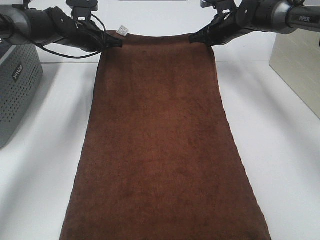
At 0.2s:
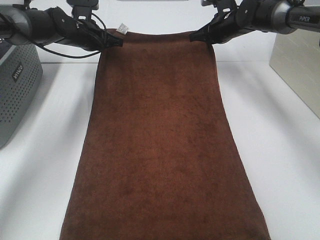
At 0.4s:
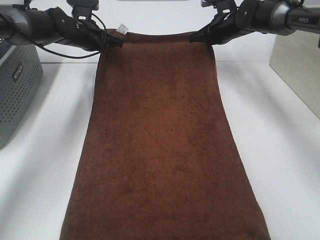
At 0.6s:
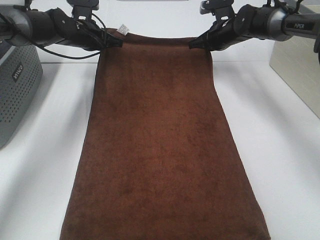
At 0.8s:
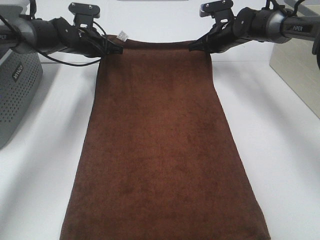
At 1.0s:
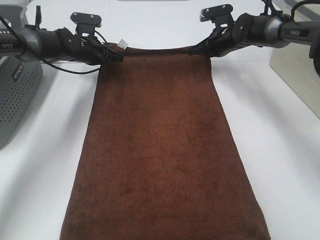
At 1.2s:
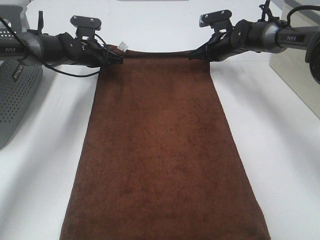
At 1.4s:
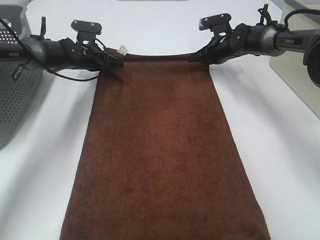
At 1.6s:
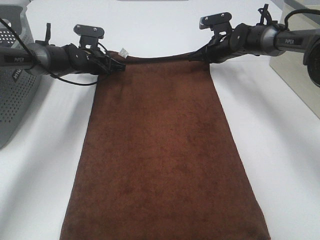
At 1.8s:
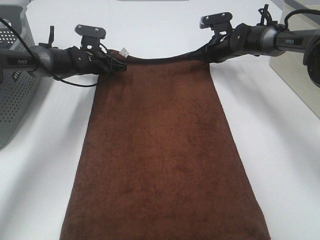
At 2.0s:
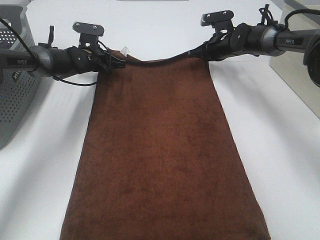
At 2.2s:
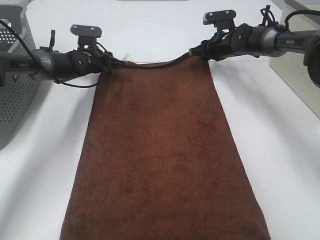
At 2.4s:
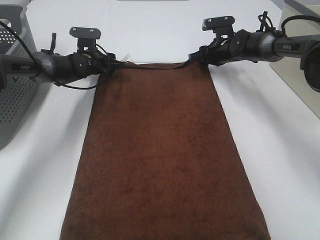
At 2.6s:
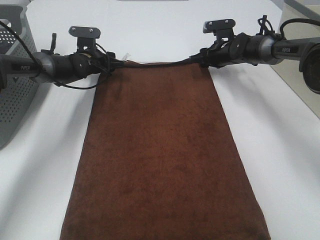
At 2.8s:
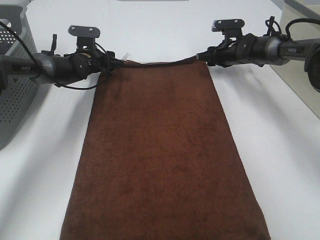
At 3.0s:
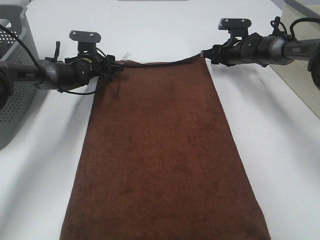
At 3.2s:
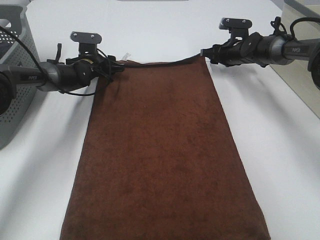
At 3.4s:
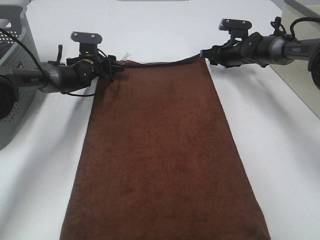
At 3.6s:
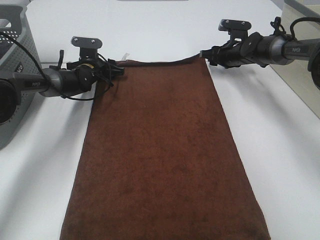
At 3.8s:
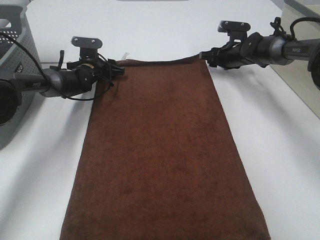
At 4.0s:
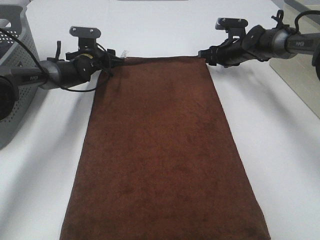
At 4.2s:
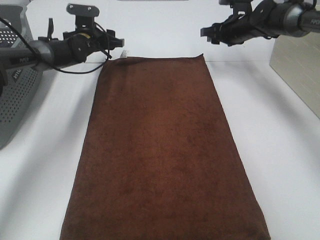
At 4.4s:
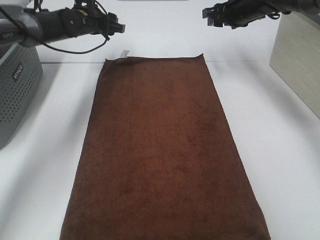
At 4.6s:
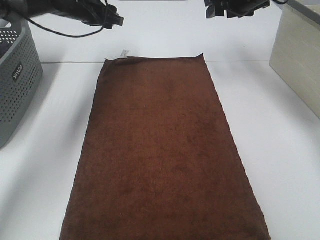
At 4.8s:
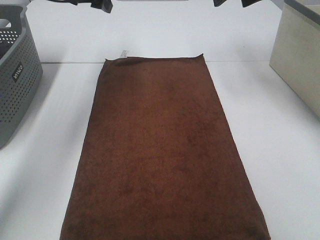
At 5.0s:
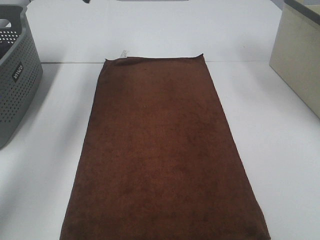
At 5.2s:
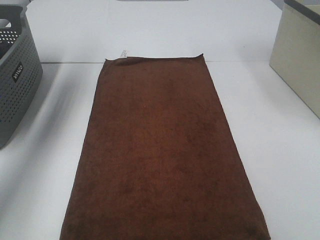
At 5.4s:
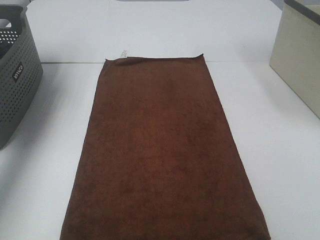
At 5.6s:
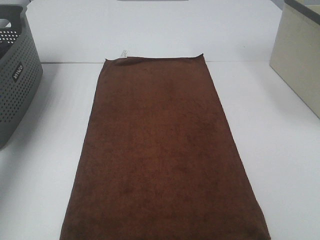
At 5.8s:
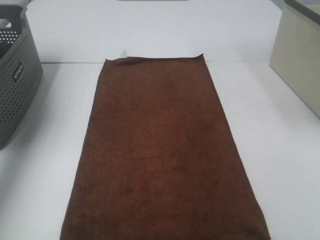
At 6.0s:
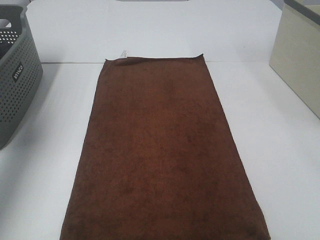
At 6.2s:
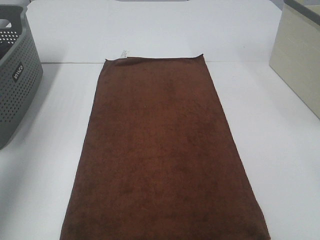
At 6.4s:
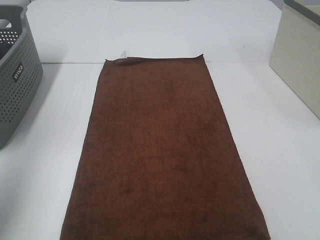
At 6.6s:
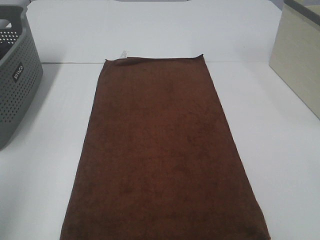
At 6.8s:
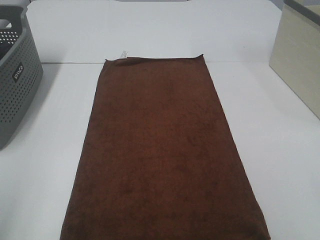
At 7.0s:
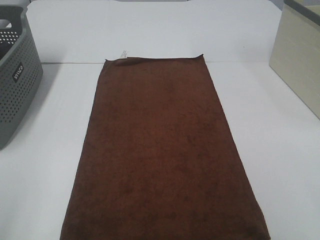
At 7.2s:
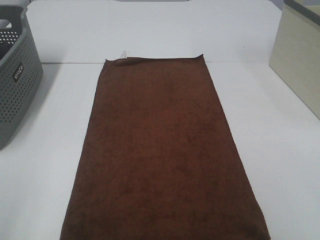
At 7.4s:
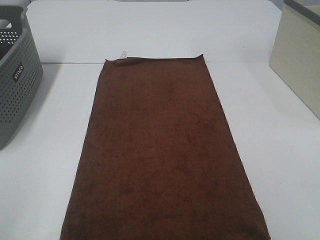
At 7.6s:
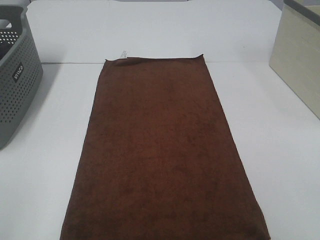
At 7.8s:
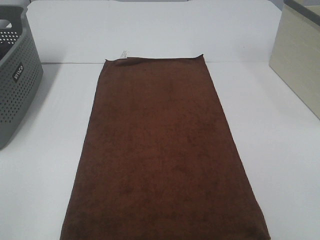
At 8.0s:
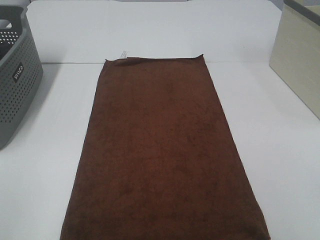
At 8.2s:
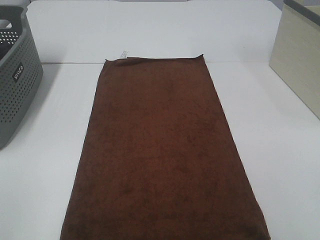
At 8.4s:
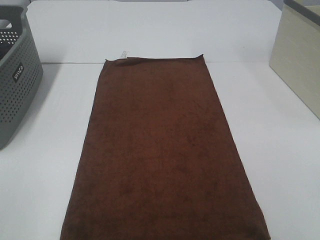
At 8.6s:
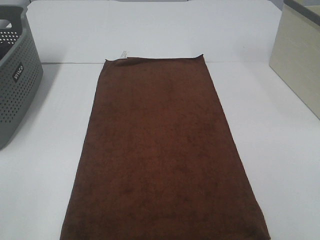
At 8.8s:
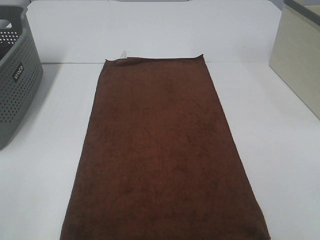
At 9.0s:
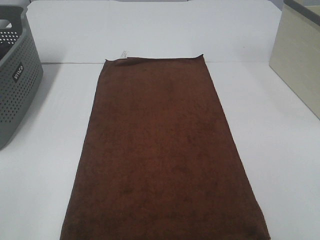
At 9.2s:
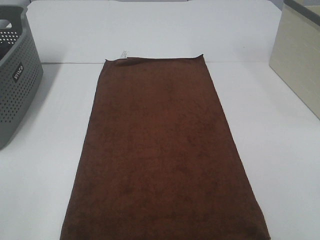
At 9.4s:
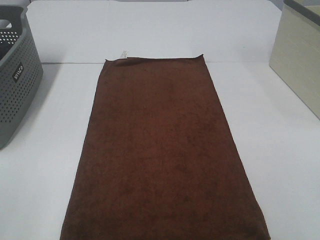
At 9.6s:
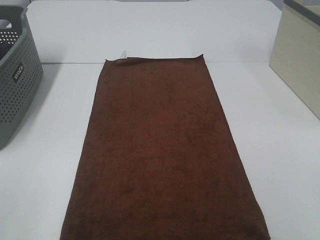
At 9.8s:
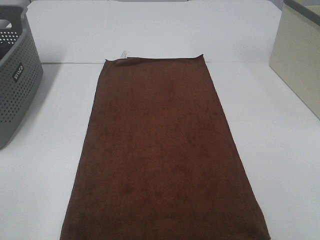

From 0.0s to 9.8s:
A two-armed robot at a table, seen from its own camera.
Task of the whole recording: Remove the towel and place it.
From 0.0s to 1.4s: The two grippers go some 5 cm downward.
From 1.4s to 2.8s: The right gripper opens up; the left gripper opens.
From 2.8s to 4.2s: The right gripper travels upward by approximately 10 cm. Meanwhile the left gripper travels upward by about 5 cm.
From 4.2s to 5.6s: The left gripper heads upward, to the left and backward, covering some 35 cm, while the right gripper travels upward and backward by some 30 cm.
From 5.6s to 7.0s: The left gripper moves backward, roughly 35 cm.

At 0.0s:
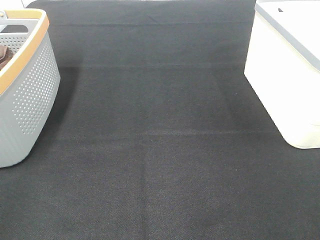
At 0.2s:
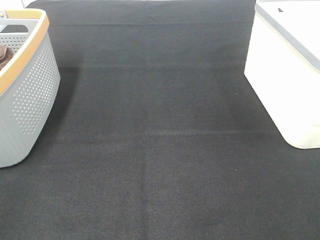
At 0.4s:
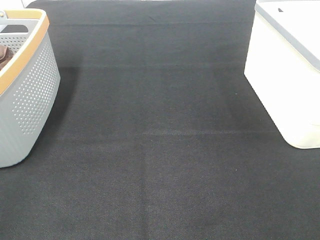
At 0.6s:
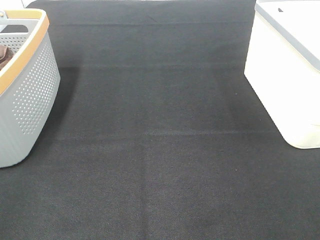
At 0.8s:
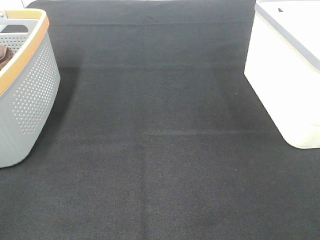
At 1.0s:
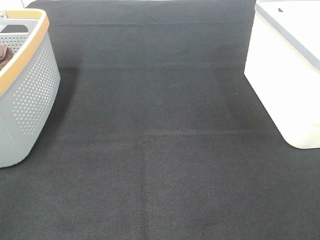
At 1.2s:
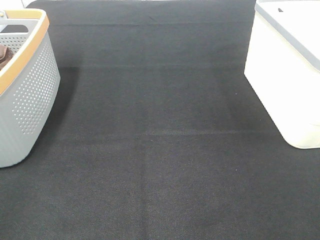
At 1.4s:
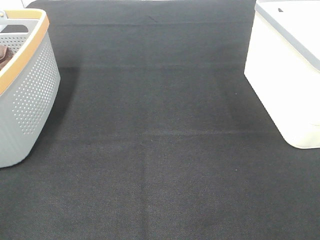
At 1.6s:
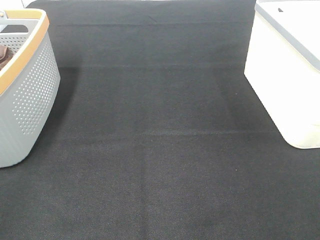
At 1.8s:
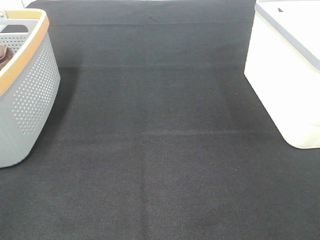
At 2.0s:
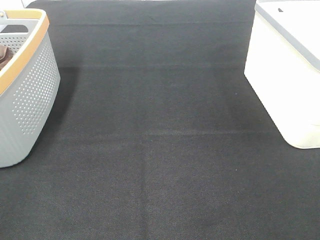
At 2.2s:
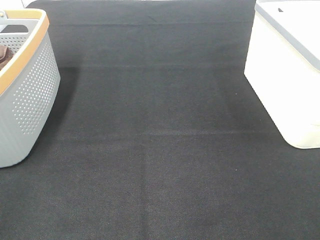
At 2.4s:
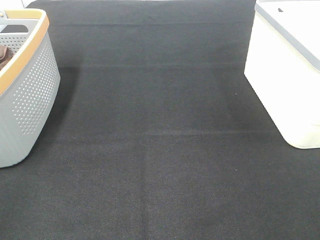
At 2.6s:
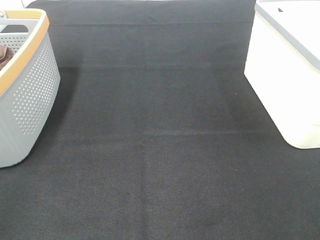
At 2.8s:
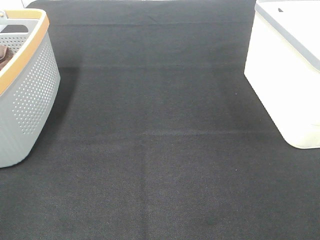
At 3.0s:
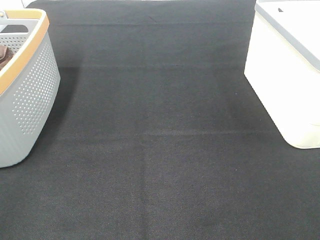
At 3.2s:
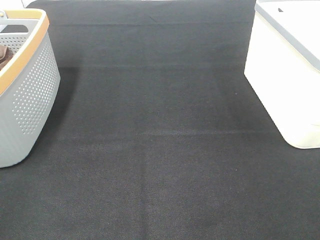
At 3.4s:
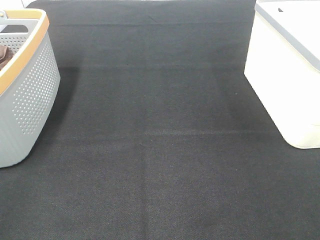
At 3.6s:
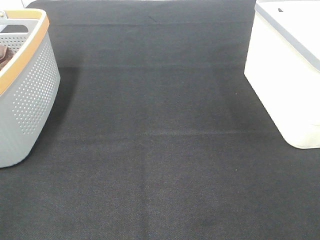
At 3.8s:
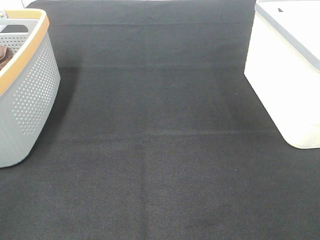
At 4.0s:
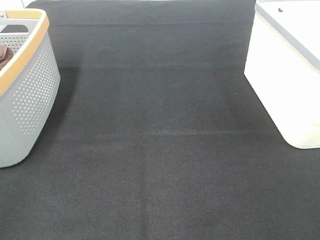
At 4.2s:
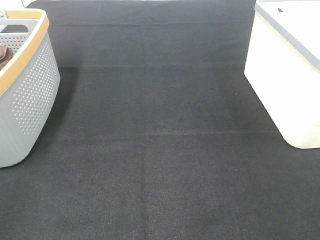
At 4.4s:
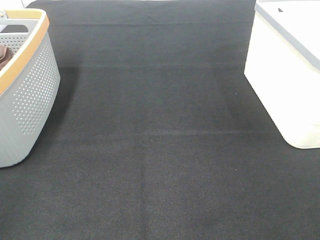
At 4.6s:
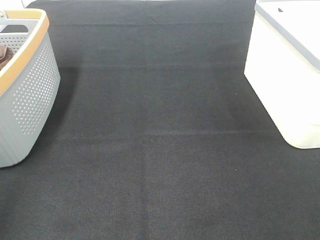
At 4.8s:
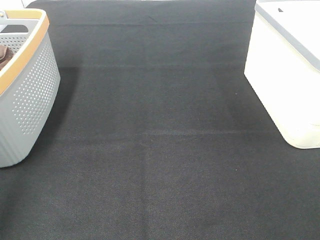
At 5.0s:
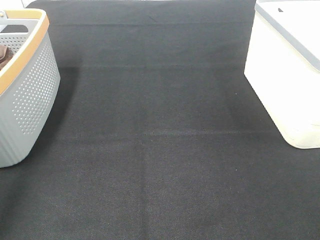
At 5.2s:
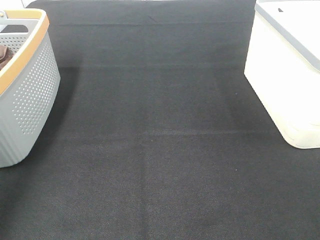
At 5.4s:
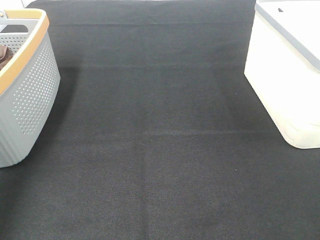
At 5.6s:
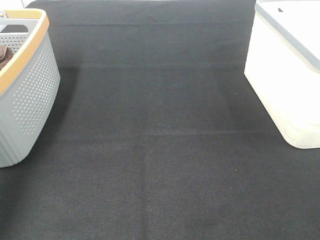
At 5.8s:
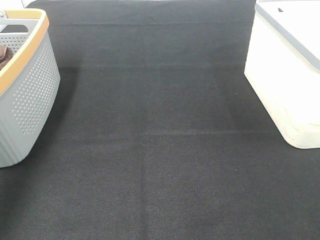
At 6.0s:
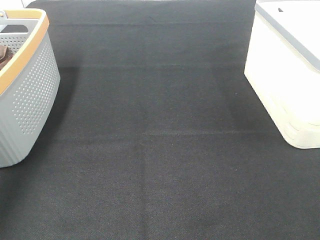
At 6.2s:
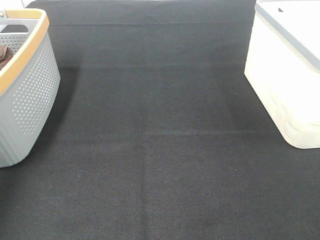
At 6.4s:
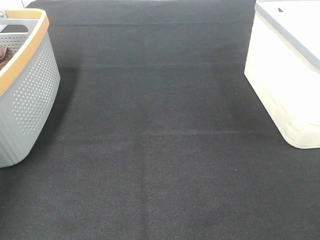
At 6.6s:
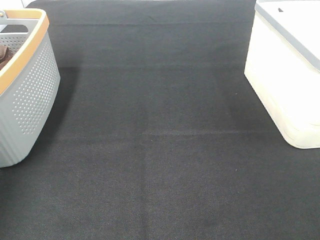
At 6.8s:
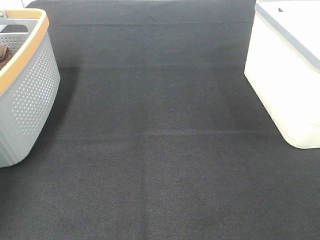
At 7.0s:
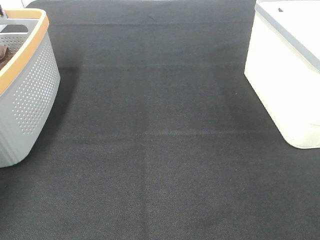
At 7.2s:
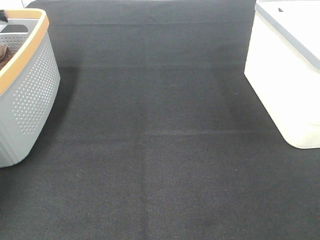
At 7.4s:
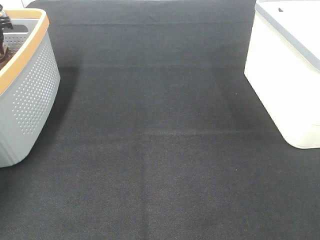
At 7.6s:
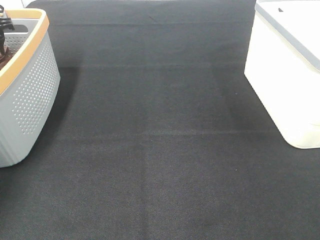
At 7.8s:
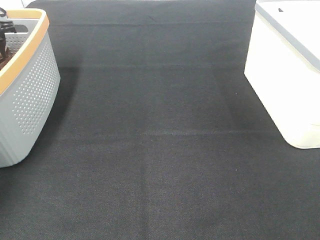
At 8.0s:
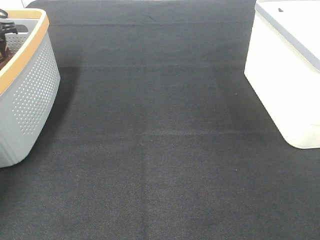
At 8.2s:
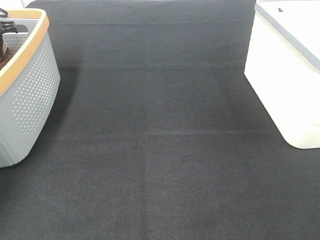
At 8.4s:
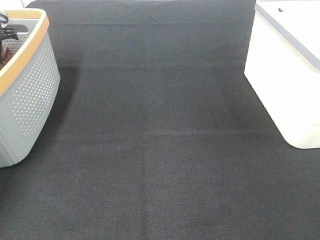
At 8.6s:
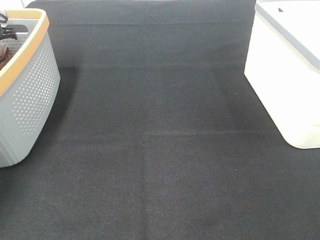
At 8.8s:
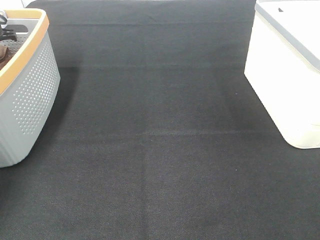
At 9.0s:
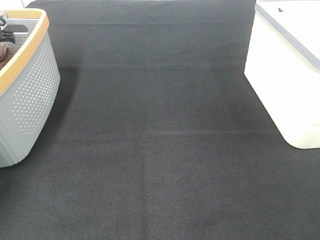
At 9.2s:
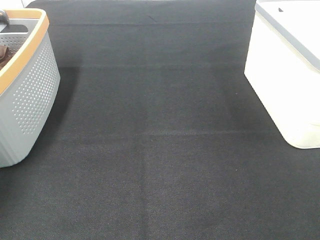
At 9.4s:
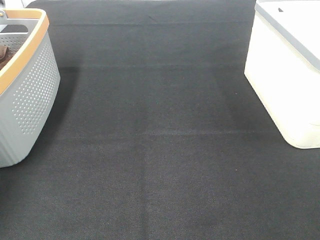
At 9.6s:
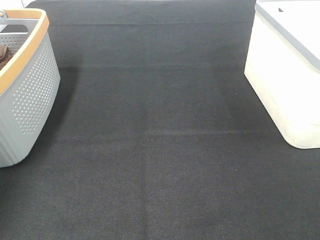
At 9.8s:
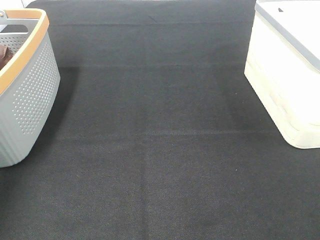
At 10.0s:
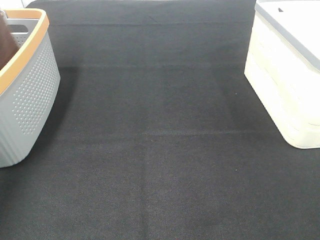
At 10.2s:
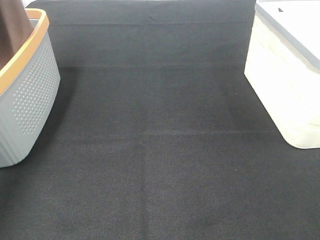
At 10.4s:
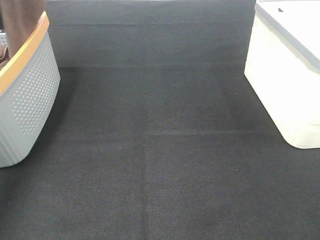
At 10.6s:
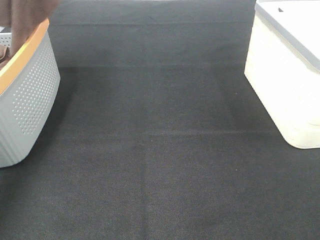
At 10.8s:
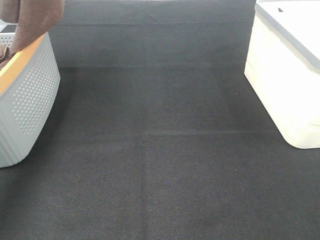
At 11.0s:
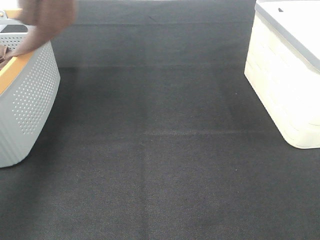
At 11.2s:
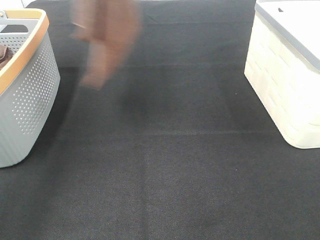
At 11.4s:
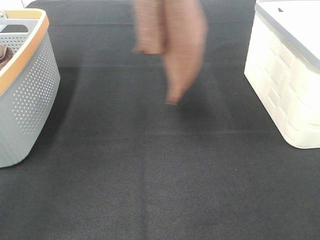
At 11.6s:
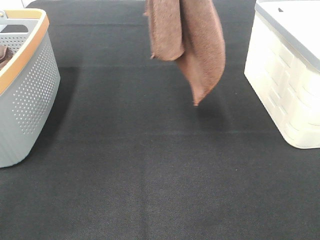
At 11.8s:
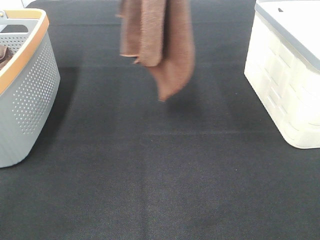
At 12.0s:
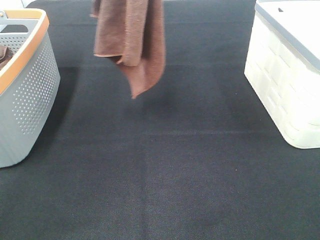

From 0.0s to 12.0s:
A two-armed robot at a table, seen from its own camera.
Task of the whole recording: Remove the towel and place it.
From 0.0s to 3.0s: The two grippers keep their place.
From 4.4s to 6.0s: The left gripper goes roughly 35 cm forward.
From 6.0s to 7.6s: The left gripper moves forward and downward, some 20 cm.
From 9.0s to 10.4s: The left gripper heads upward, covering some 30 cm.
From 10.4s to 12.0s: The left gripper is displaced to the right by approximately 20 cm.

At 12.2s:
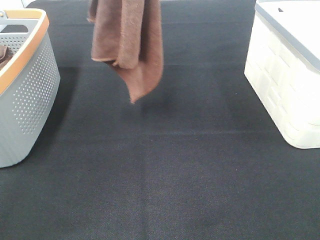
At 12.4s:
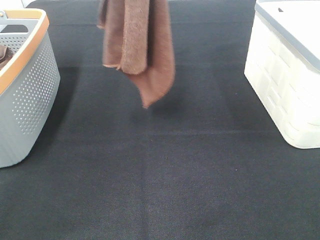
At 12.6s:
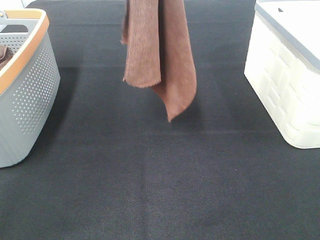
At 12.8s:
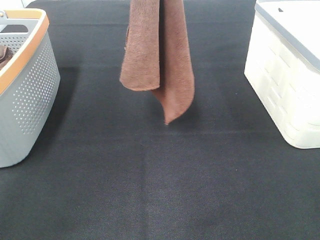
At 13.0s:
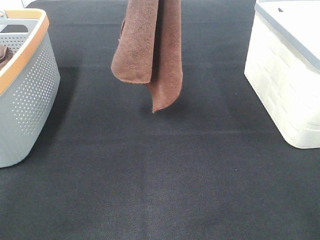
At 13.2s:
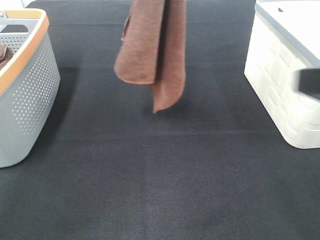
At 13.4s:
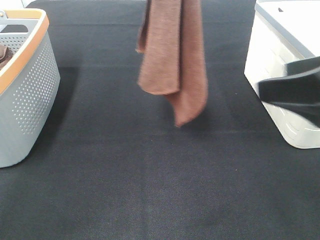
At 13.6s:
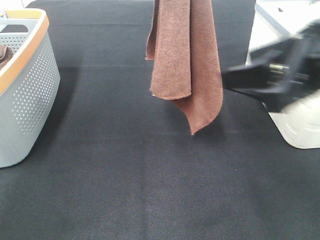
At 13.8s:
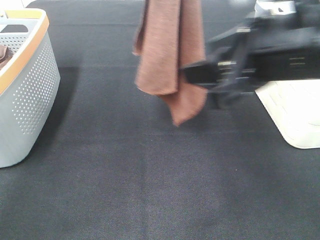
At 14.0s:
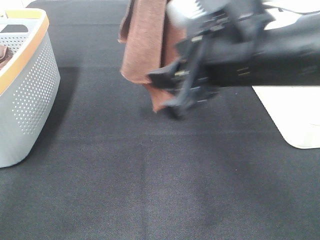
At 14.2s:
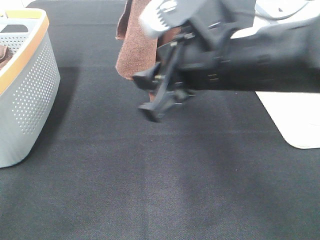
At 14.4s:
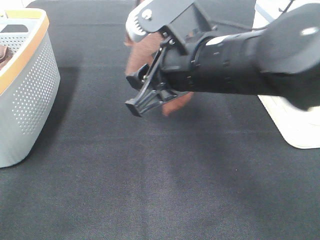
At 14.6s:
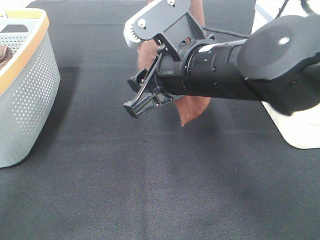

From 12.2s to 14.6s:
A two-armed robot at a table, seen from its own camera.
Task of the whole recording: Remove the towel and place it.
From 12.2s to 13.4s: The right gripper moves forward and to the left, about 20 cm.
From 13.4s to 14.6s: The right gripper goes some 20 cm to the left and forward.
